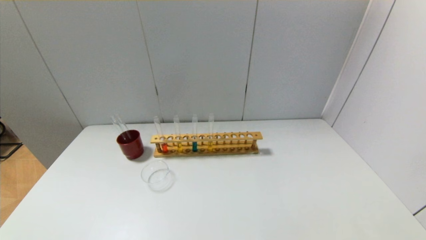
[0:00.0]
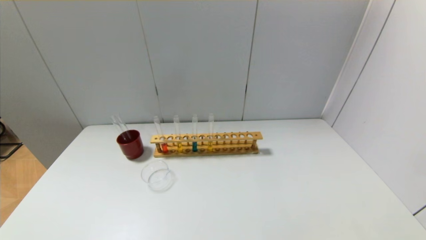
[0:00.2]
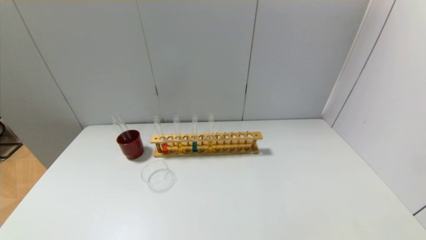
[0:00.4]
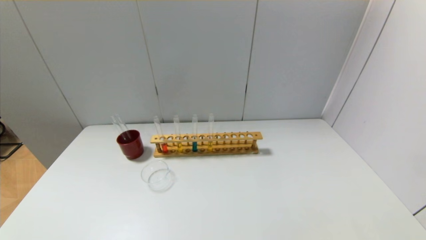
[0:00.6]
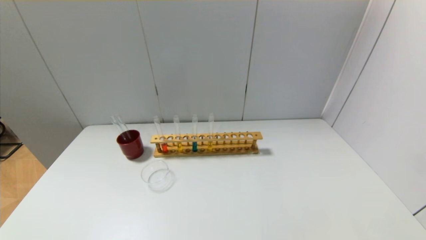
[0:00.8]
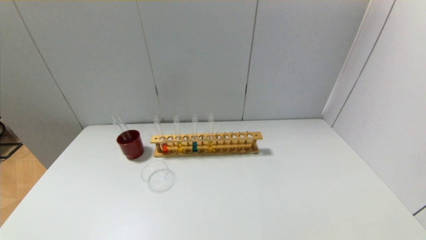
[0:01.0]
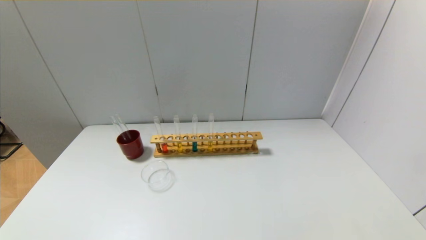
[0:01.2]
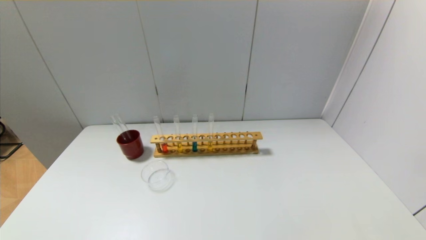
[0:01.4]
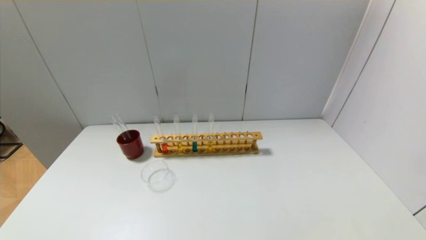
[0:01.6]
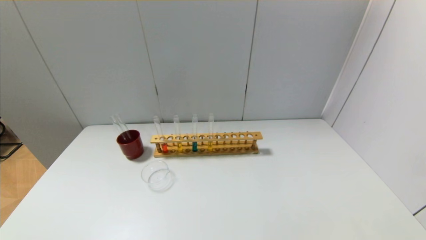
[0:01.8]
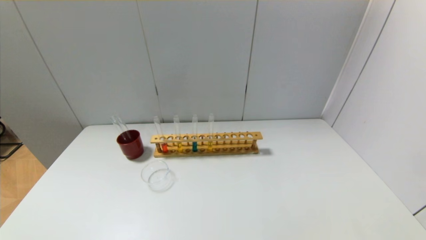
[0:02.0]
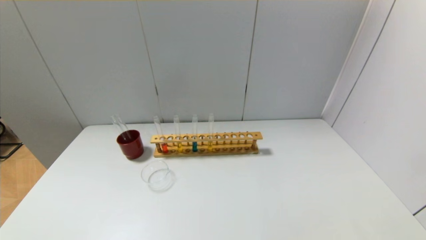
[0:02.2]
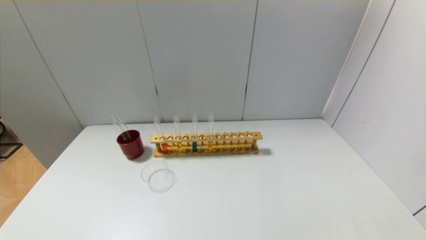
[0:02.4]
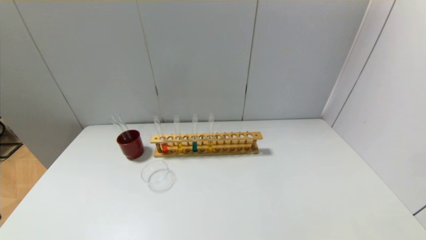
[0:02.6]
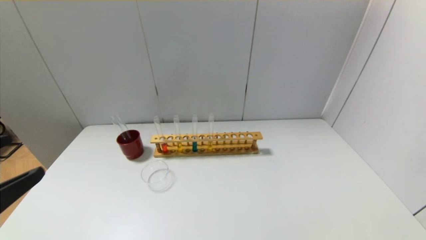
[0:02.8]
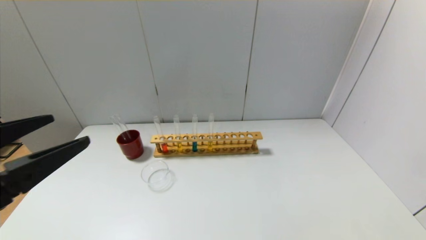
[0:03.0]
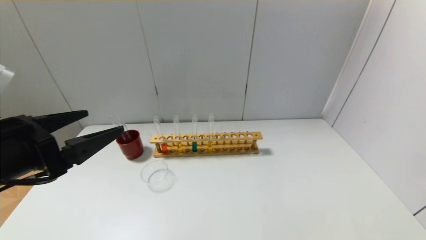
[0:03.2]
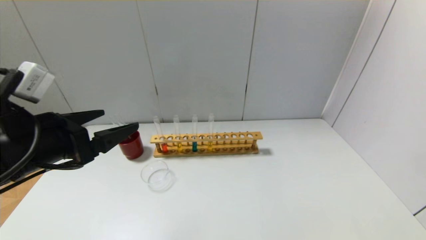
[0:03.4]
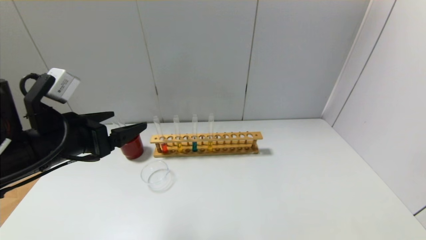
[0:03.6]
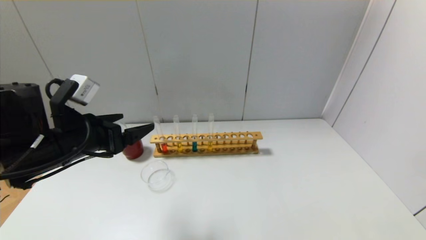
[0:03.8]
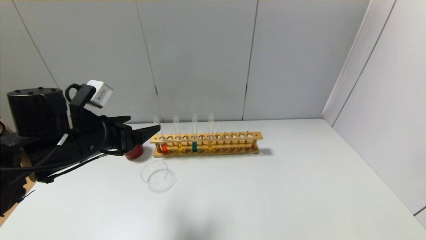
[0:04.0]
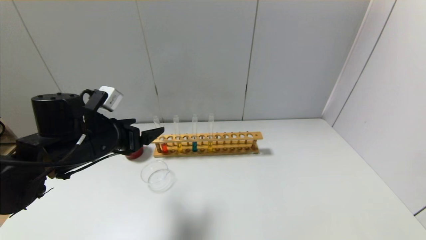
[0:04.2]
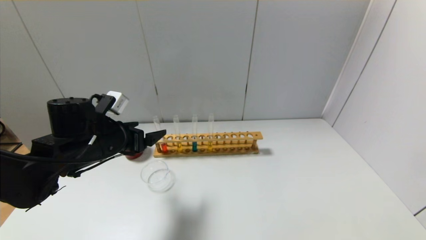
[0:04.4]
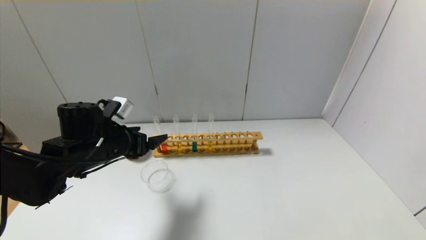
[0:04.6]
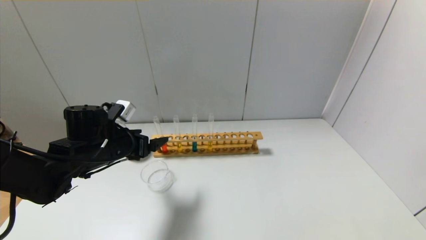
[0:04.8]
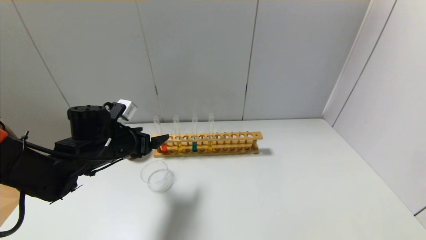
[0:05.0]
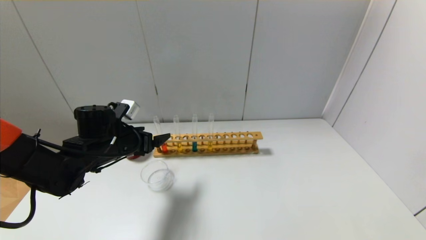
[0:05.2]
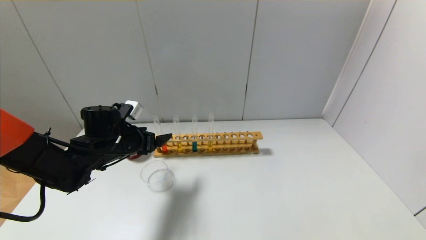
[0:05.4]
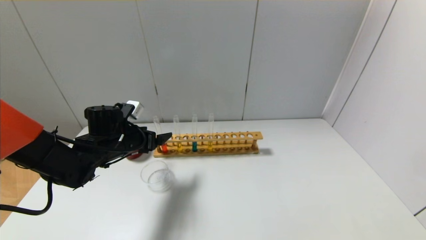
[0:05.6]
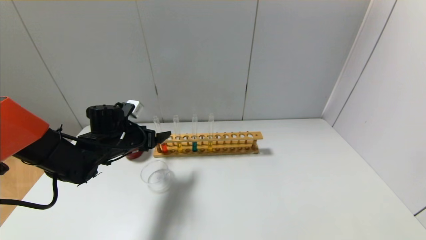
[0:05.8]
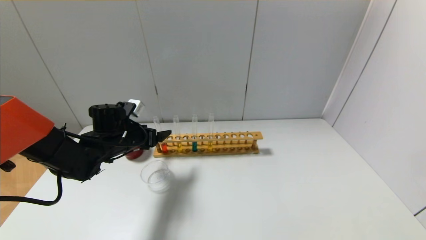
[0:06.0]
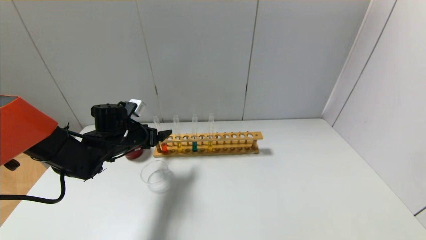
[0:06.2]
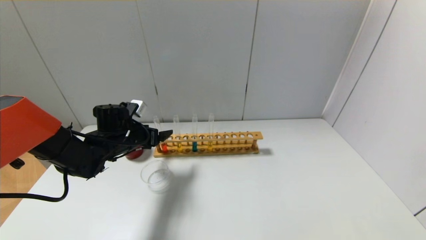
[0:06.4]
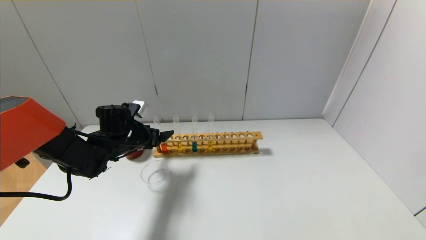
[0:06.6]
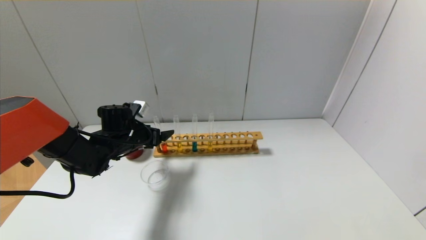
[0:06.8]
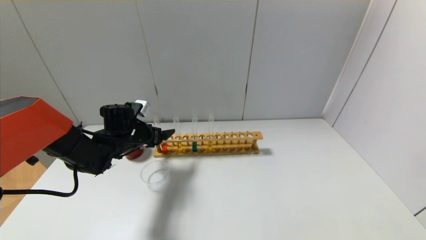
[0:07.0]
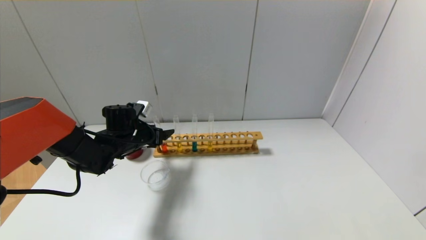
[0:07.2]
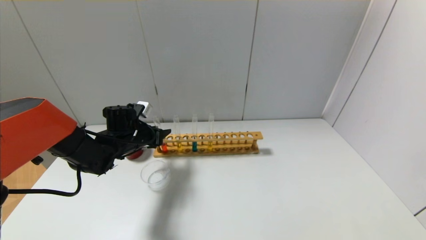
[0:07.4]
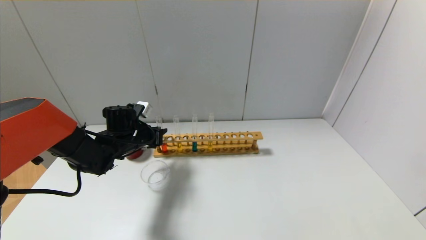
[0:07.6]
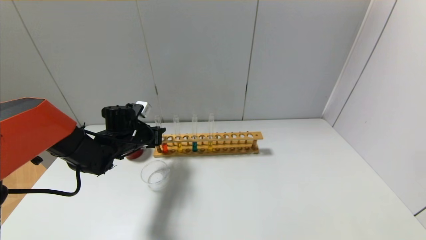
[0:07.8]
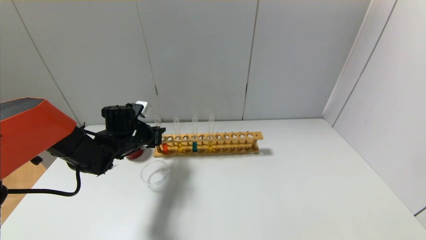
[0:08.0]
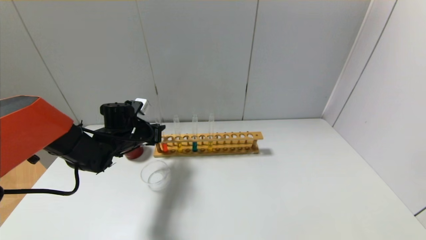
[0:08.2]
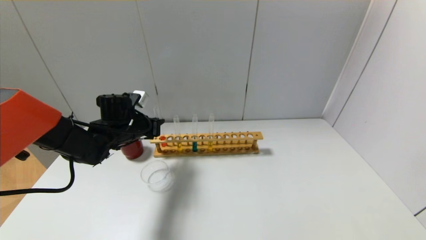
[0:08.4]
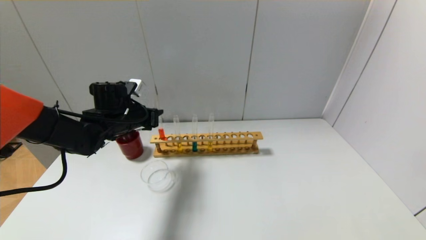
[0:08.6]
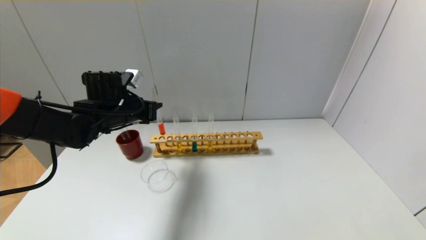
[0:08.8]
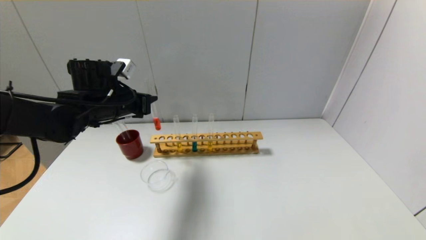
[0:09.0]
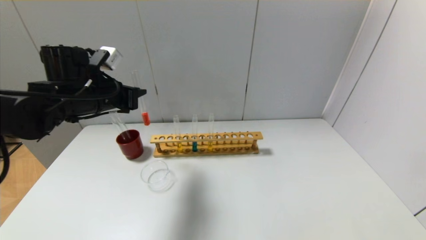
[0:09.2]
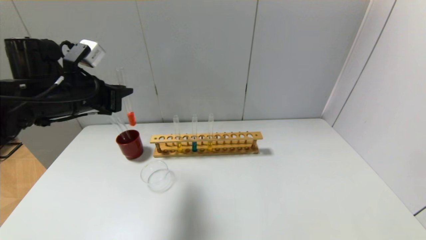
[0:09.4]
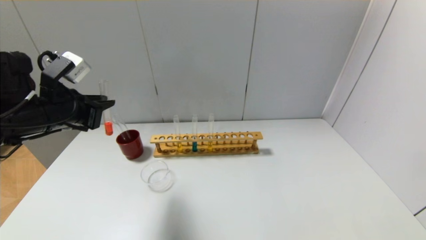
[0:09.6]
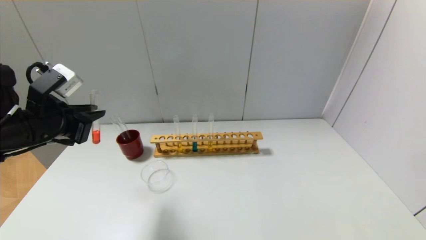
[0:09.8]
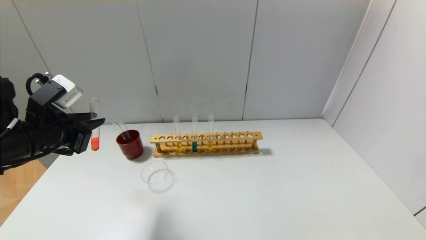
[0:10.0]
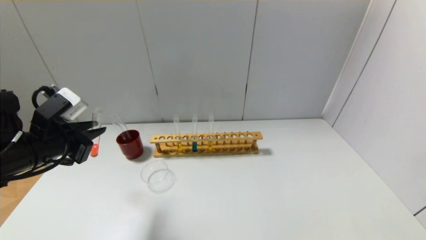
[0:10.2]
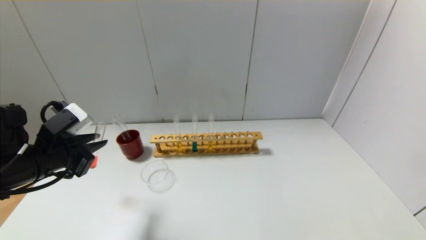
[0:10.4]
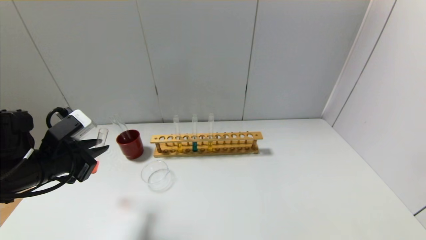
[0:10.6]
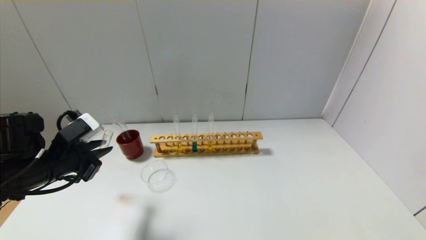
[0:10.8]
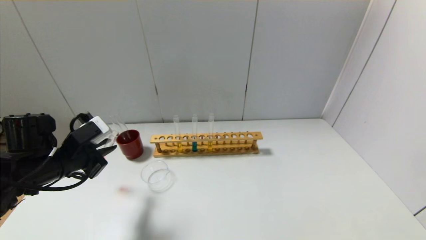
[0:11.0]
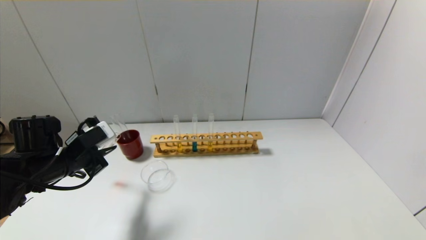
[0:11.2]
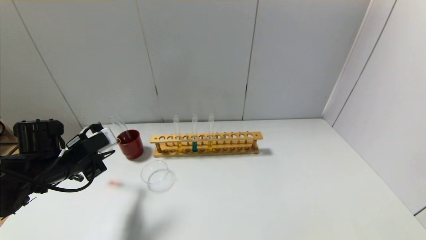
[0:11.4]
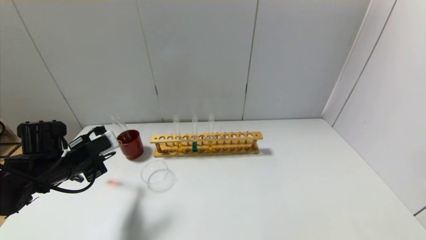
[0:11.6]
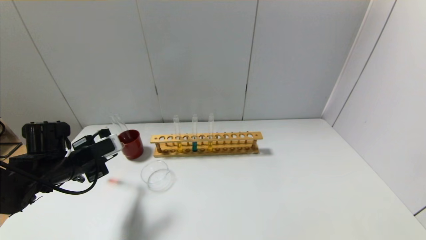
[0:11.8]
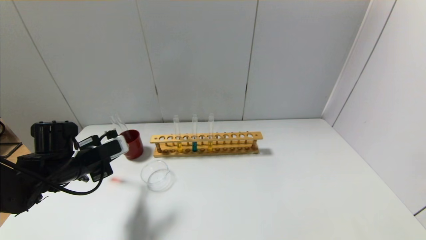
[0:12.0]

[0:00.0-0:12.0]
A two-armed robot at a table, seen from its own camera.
Step, 0:00.0 to 0:08.0: Grasp the red reagent with the left gripper.
0:01.6 to 0:03.0: The left gripper is displaced upward and forward by roughly 20 cm.
0:03.0 to 0:04.4: The left gripper goes some 20 cm forward and downward.
0:04.4 to 0:06.0: The left gripper goes about 10 cm forward.
0:06.0 to 0:07.6: The left gripper closes up.
0:07.6 to 0:09.0: The left gripper is displaced upward by some 15 cm.
0:09.0 to 0:10.4: The left gripper goes about 15 cm backward and to the left.
0:10.4 to 0:12.0: The left gripper shifts about 10 cm downward and forward.

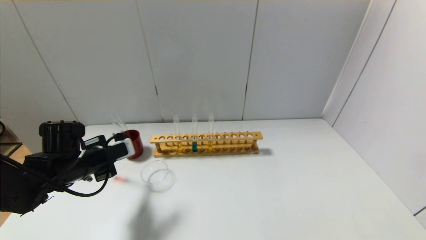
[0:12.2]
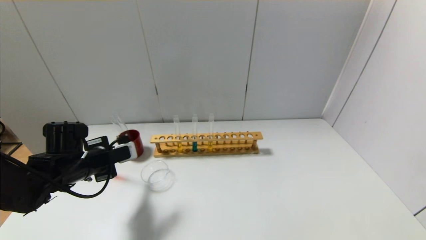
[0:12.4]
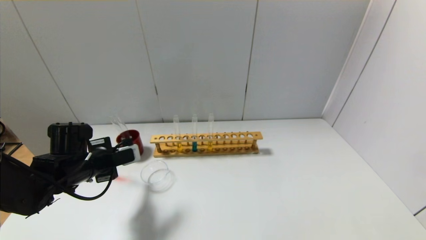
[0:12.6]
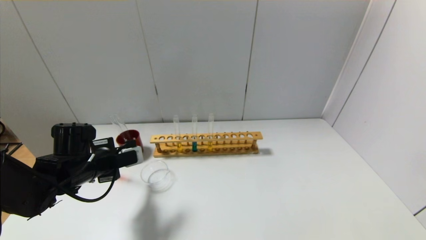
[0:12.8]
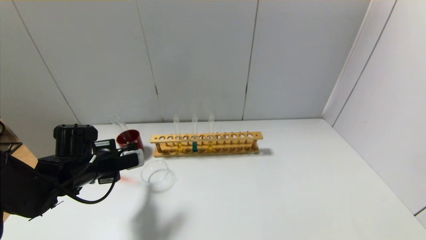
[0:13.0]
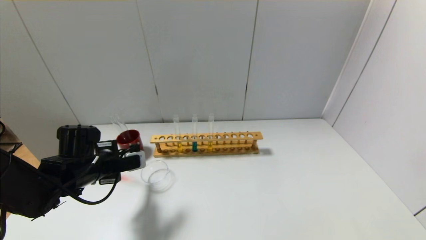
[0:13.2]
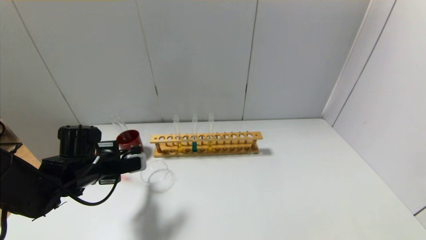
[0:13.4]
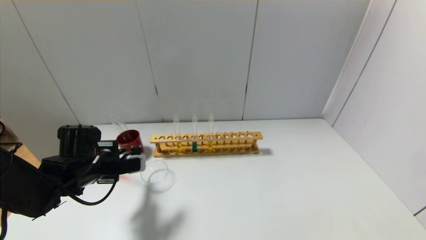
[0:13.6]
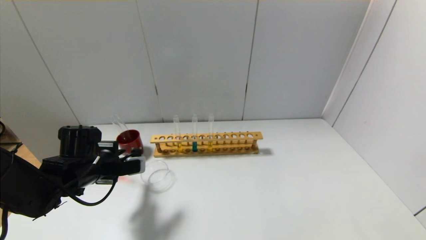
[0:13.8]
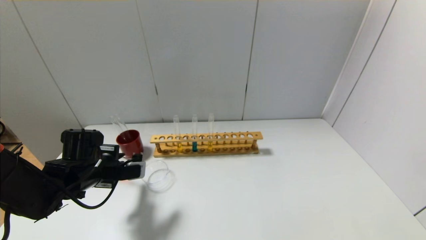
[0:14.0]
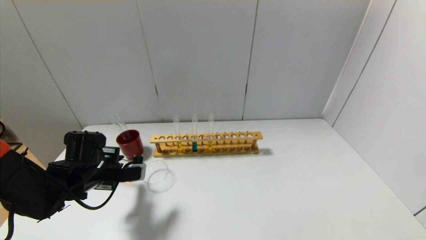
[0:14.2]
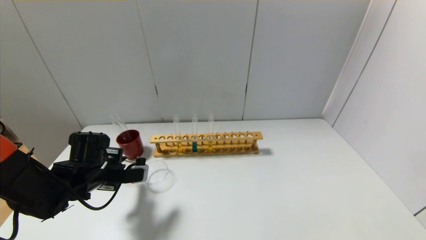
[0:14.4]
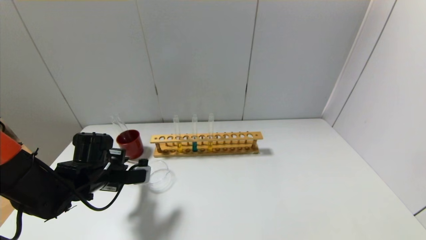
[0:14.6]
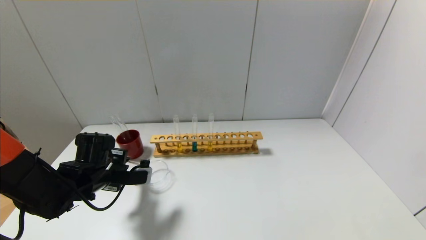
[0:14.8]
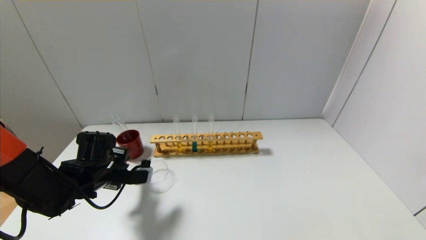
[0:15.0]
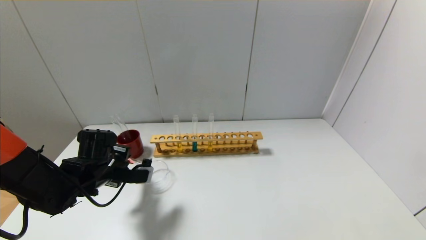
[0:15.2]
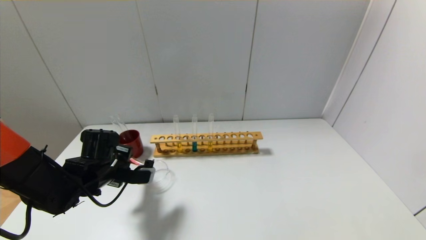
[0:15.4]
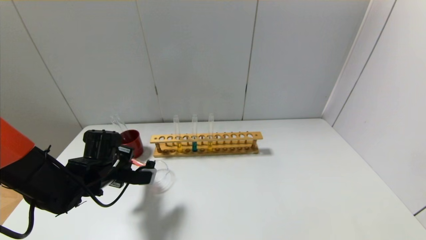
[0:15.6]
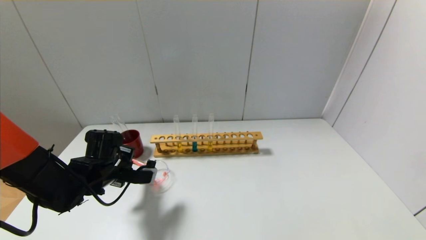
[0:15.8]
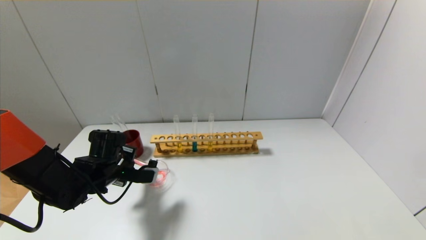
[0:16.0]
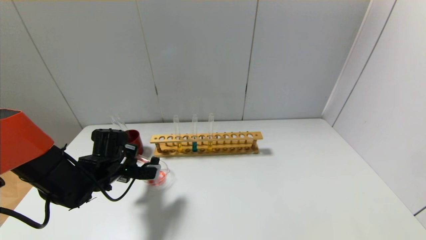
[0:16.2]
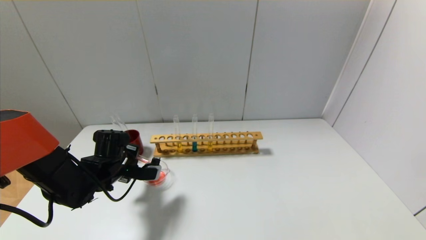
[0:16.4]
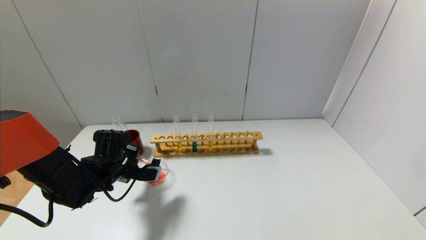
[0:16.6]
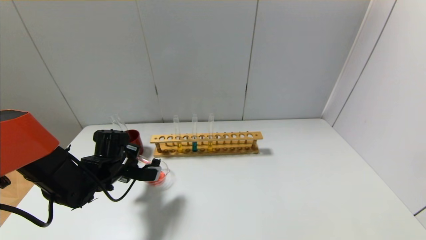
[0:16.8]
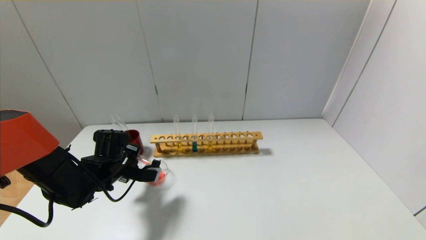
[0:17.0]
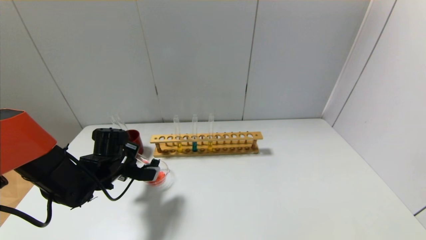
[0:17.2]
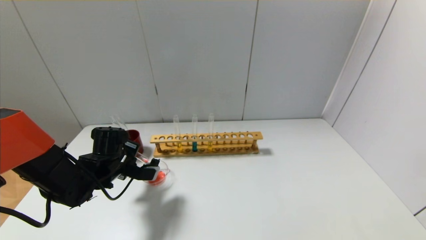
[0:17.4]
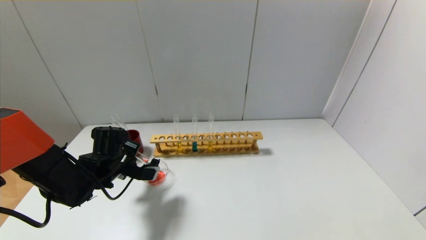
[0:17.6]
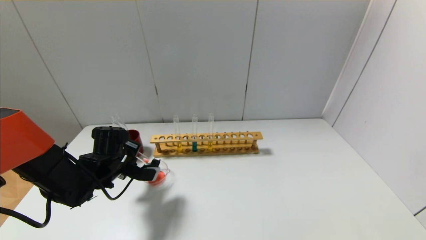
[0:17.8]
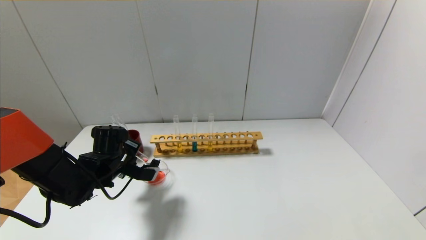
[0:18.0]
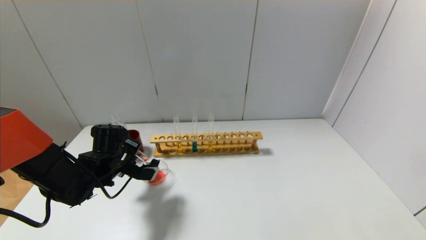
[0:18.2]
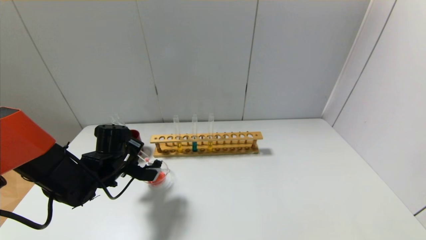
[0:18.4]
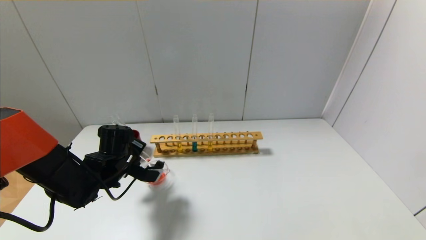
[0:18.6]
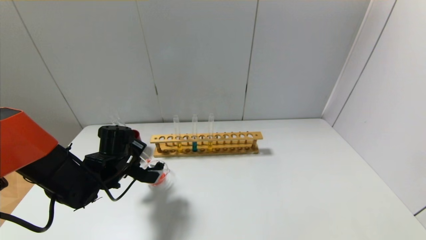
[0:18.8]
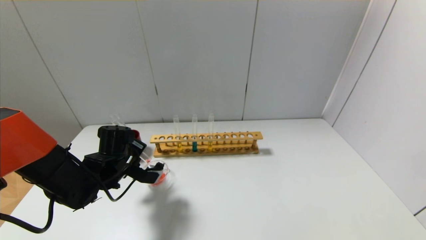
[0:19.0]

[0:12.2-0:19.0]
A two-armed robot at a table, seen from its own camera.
0:12.2 to 0:13.6: The grippers stay close to where they were, moving slightly.
0:13.6 to 0:16.2: The grippers stay close to where they were, moving slightly.
0:16.2 to 0:19.0: The grippers move only a little.
